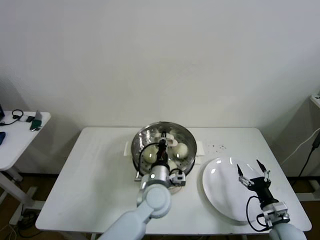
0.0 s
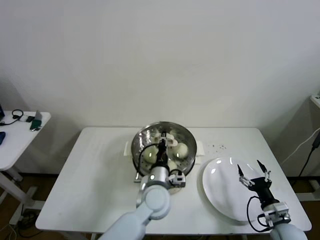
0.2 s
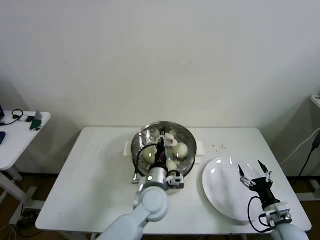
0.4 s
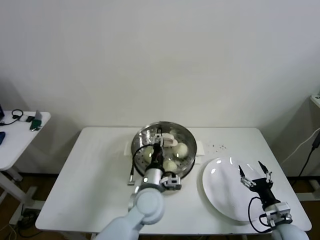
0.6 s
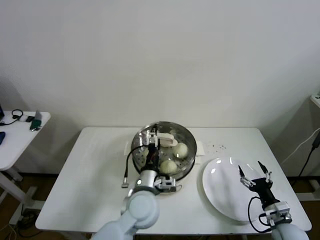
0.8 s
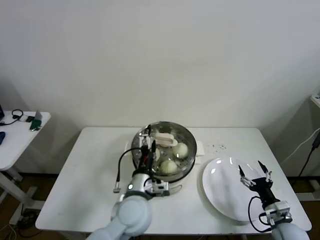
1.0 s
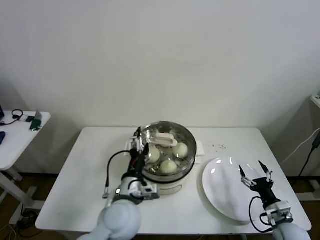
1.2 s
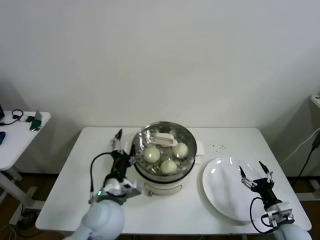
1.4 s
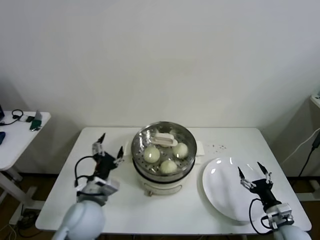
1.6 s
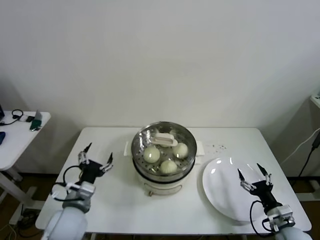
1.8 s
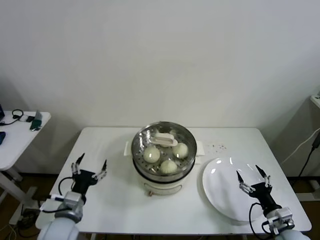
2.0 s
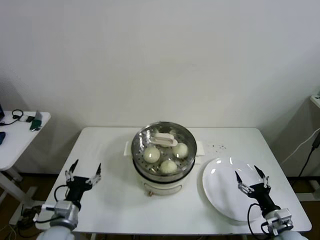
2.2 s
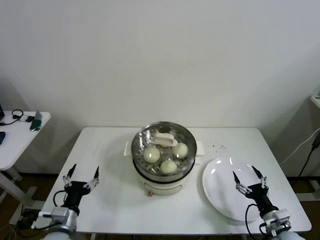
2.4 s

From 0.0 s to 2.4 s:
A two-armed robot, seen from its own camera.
From 0.0 s to 1.2 s: The left gripper goes roughly 10 cm to the left and backward, and opens up.
From 1.2 s to 2.4 s: The left gripper heads to the left and downward, covering roughly 25 cm.

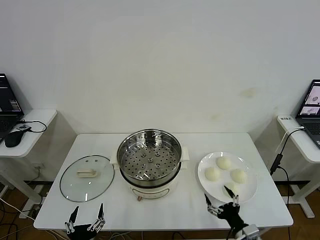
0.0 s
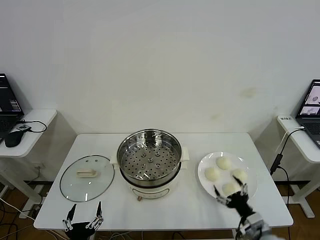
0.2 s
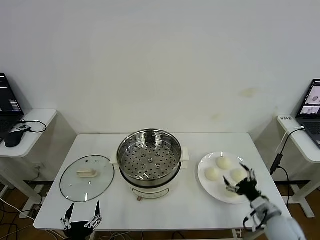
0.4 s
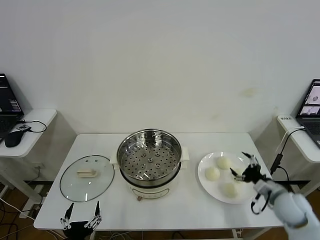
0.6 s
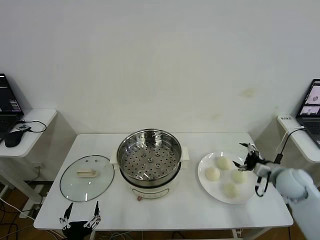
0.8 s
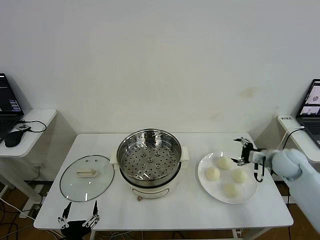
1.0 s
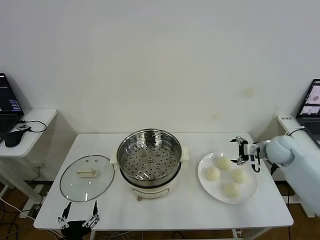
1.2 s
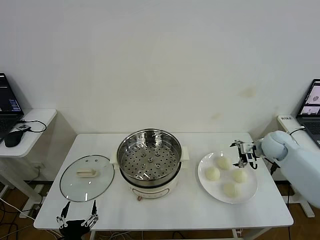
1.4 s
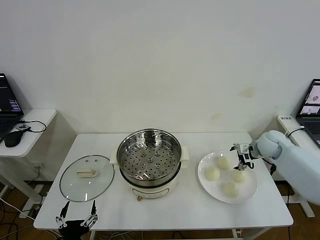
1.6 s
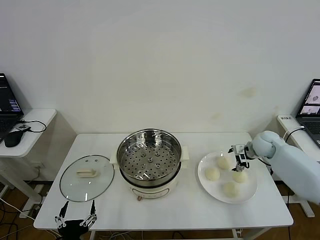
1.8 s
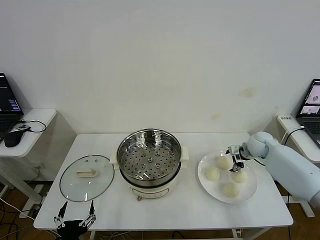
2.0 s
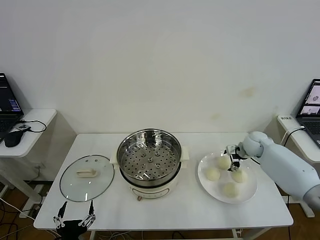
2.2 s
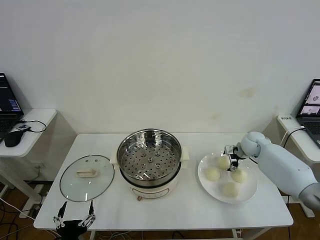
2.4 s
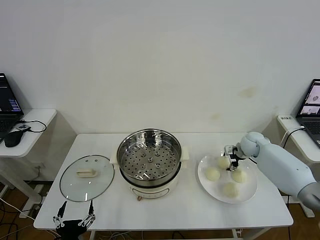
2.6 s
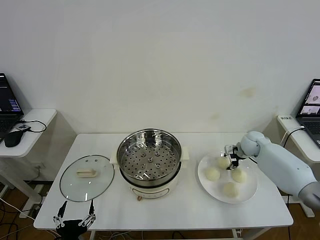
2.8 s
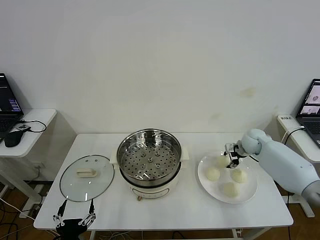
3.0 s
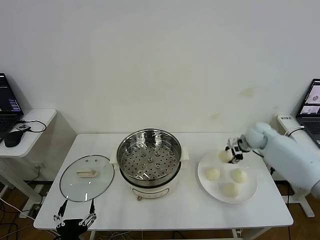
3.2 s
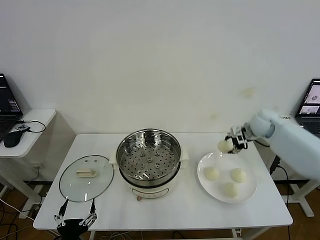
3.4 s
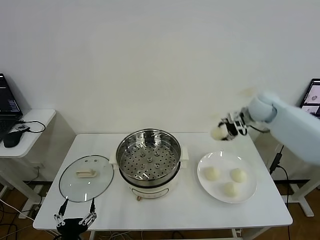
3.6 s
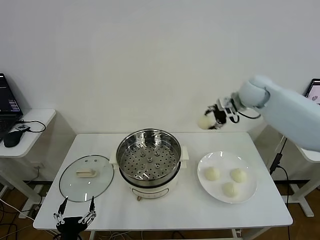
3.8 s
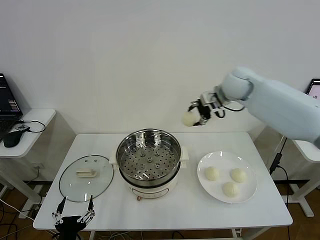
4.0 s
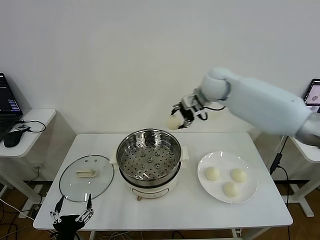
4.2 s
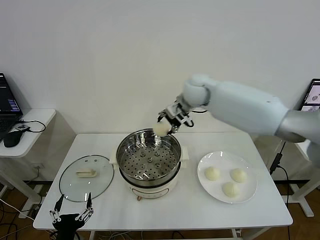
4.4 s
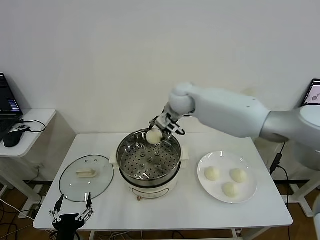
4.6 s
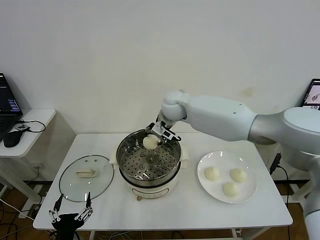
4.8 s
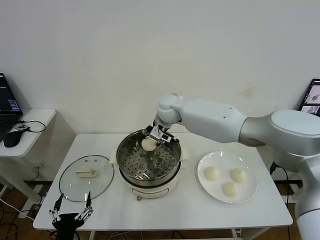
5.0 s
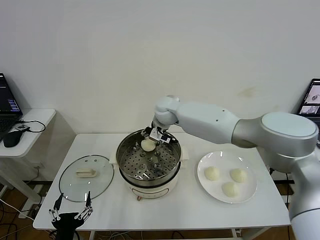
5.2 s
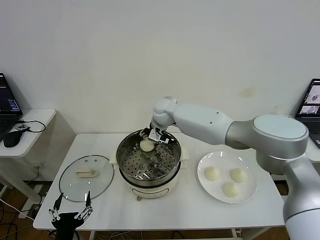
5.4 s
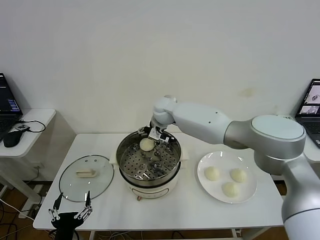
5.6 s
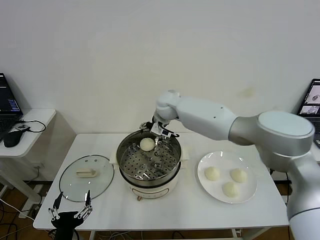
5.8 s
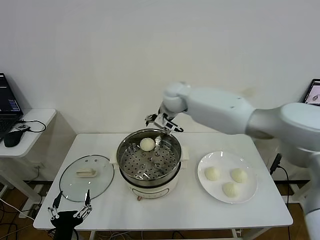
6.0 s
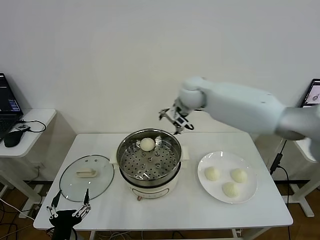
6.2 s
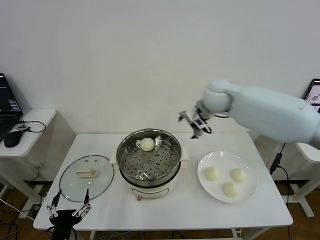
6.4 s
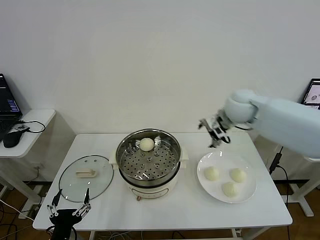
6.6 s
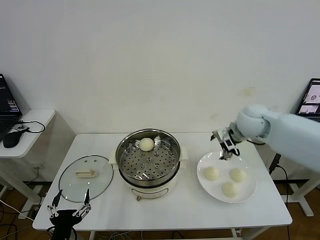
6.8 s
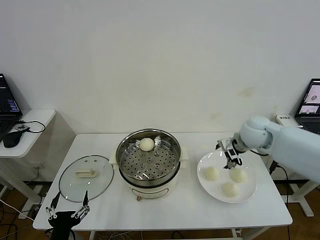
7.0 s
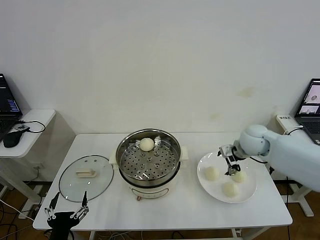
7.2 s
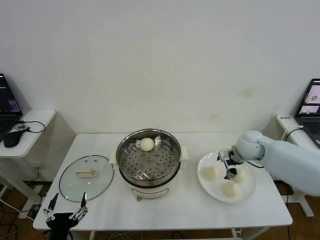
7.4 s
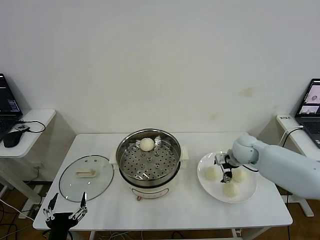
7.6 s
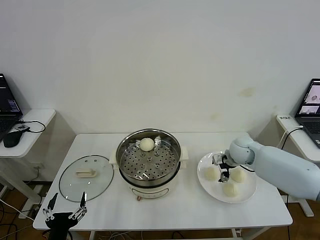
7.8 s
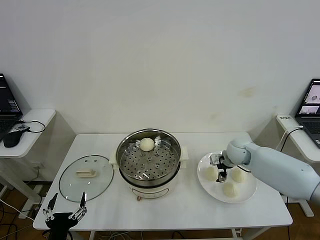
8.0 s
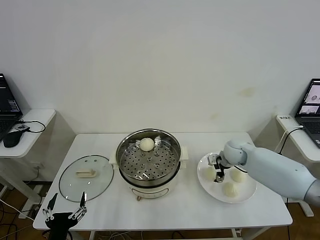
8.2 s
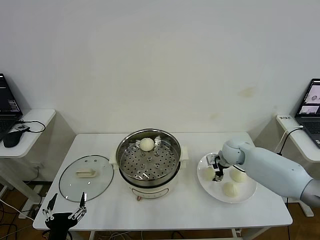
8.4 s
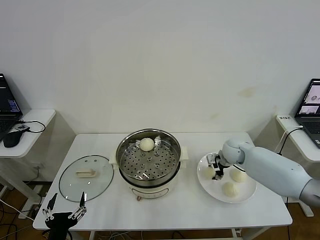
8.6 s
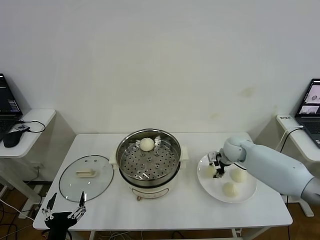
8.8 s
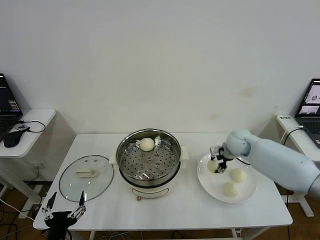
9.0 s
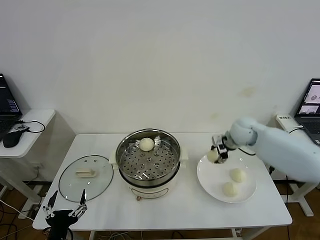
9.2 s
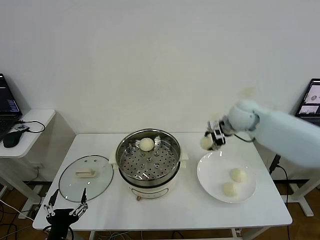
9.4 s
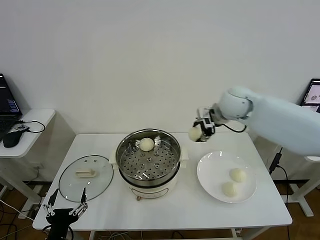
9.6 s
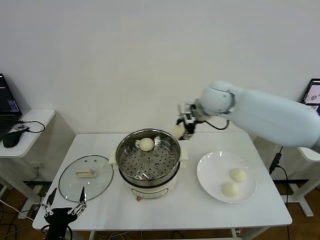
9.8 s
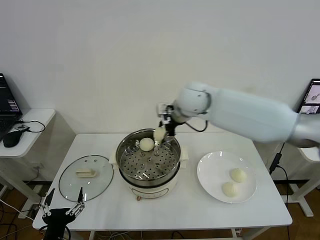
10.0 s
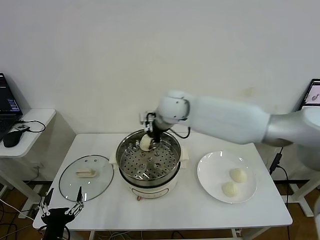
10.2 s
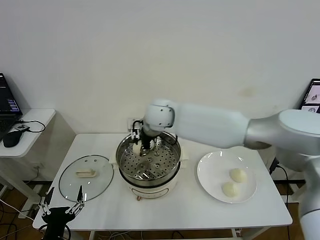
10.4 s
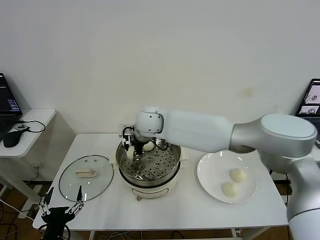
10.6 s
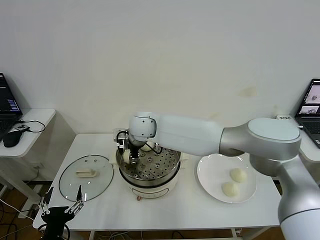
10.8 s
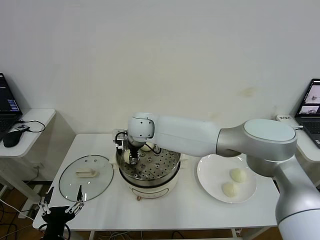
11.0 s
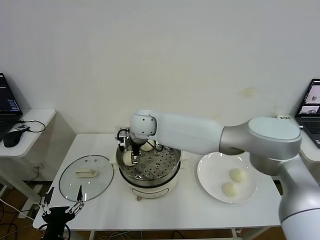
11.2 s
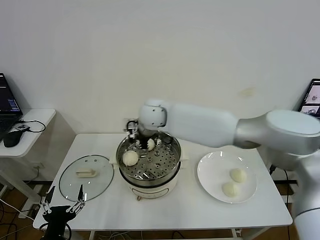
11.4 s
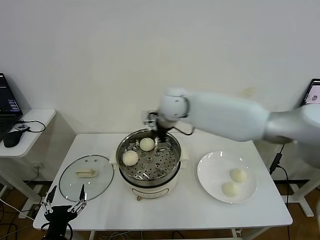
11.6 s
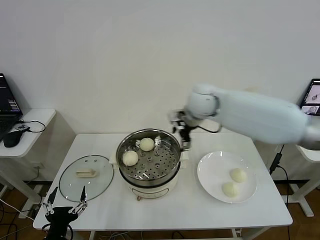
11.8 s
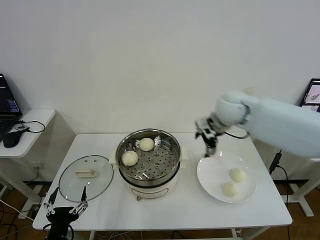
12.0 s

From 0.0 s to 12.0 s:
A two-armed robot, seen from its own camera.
Step, from 0.0 s to 2.8 s: Grasp the baozi in the plate with right gripper.
Step, from 3.0 s to 5.6 s: Place the baozi on the steamer with right gripper.
Step, from 5.8 s to 8.4 s: Grasp the baozi in the plate with right gripper.
Step, from 8.8 s to 11.0 s: Place the baozi on the steamer with right gripper.
From 1.6 s to 3.0 s: The right gripper closes up.
From 3.0 s to 4.4 s: The right gripper goes approximately 35 cm to the left and upward.
From 4.4 s to 6.0 s: The right gripper reaches some 10 cm downward, then returns, and opens up.
From 6.0 s to 7.6 s: The right gripper travels to the right and downward by roughly 30 cm.
From 7.6 s to 9.0 s: The right gripper closes up.
From 9.0 s to 10.4 s: The right gripper travels to the left by approximately 30 cm.
From 10.4 s to 12.0 s: The right gripper shifts about 25 cm to the right, and opens its fingers.

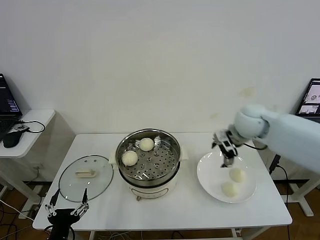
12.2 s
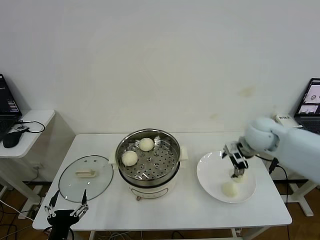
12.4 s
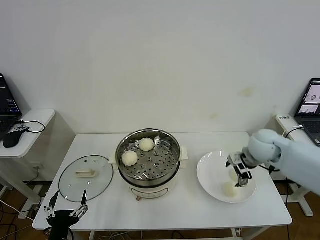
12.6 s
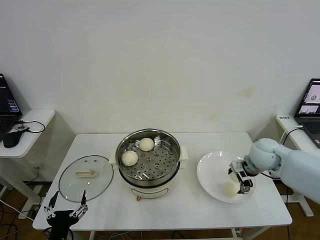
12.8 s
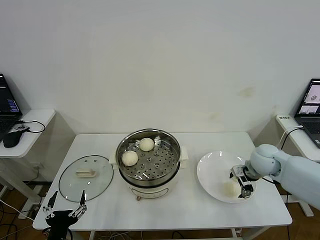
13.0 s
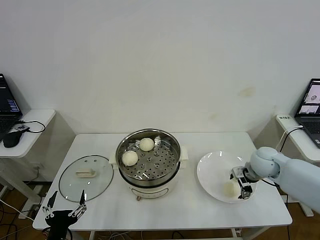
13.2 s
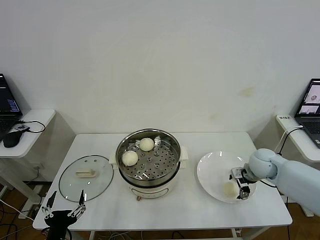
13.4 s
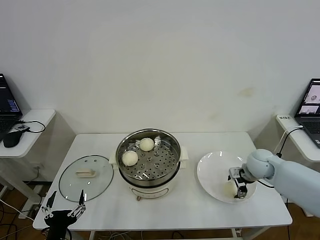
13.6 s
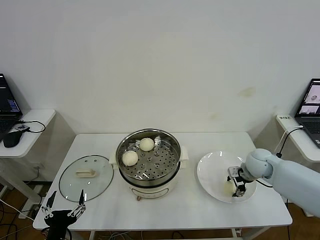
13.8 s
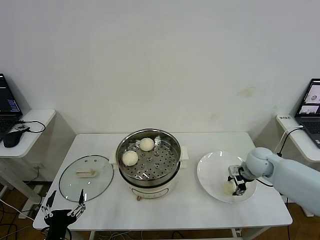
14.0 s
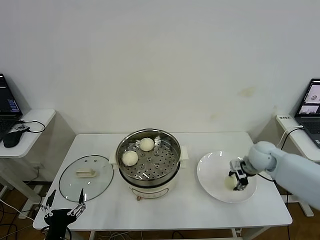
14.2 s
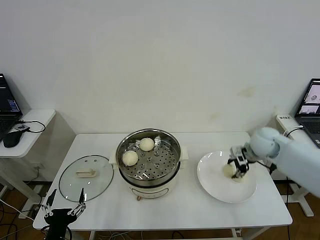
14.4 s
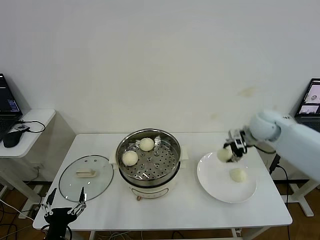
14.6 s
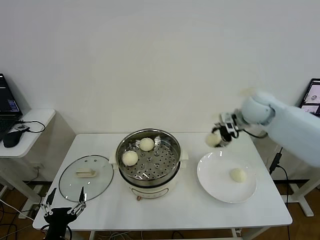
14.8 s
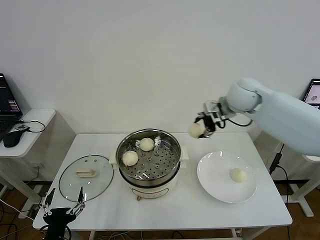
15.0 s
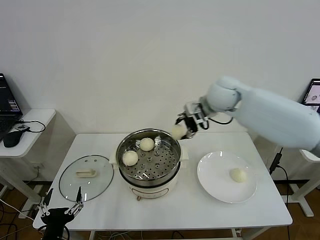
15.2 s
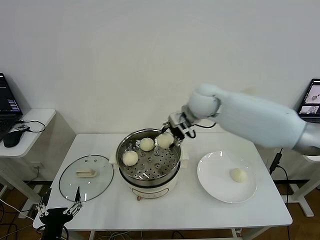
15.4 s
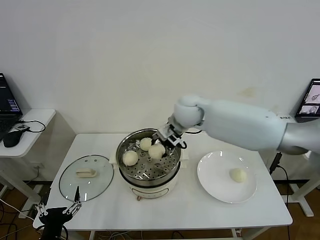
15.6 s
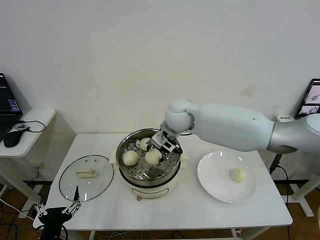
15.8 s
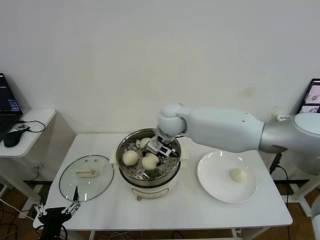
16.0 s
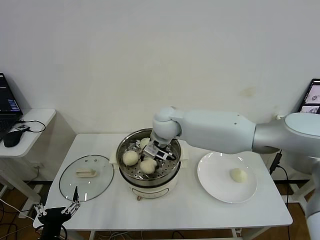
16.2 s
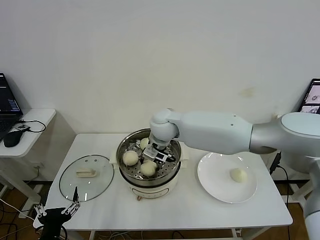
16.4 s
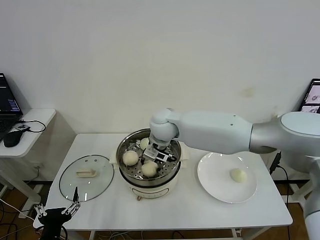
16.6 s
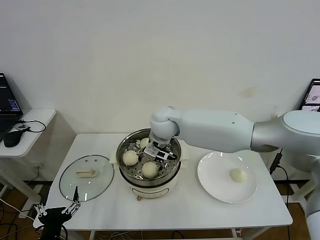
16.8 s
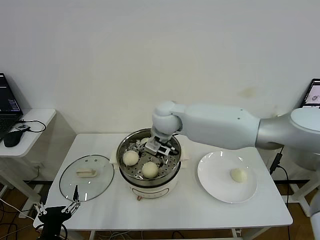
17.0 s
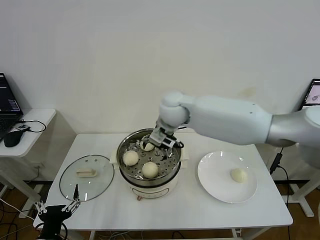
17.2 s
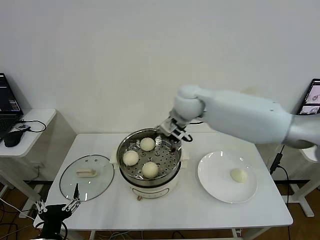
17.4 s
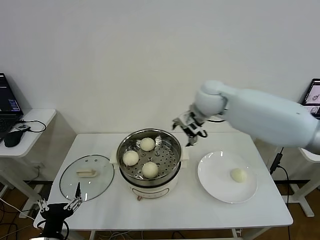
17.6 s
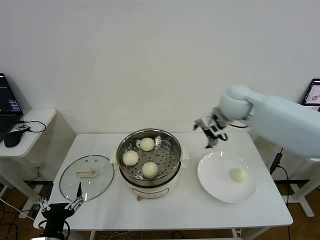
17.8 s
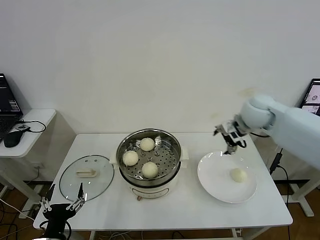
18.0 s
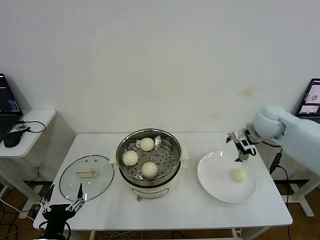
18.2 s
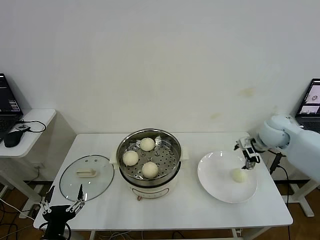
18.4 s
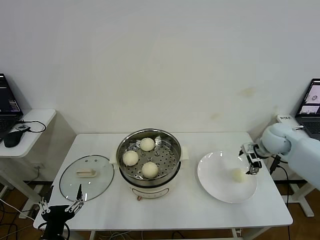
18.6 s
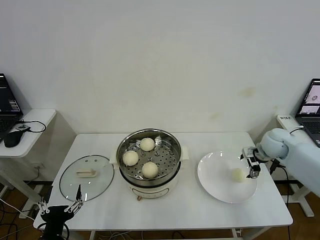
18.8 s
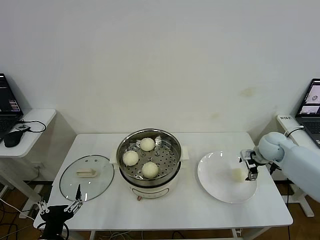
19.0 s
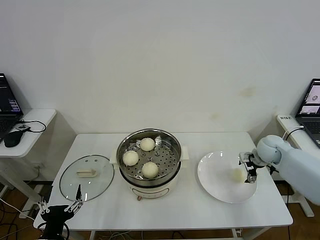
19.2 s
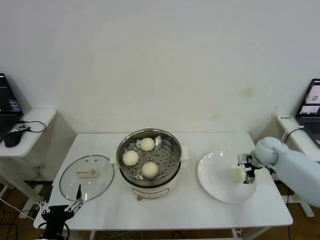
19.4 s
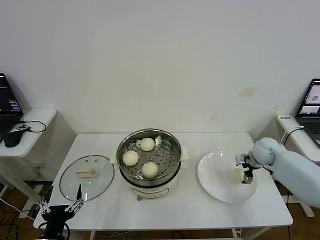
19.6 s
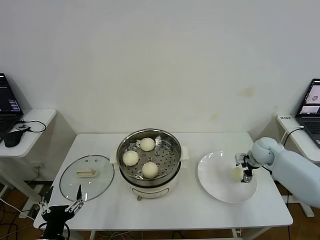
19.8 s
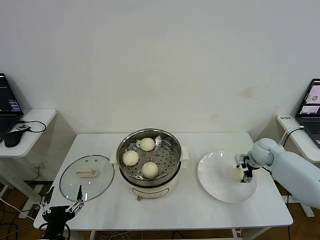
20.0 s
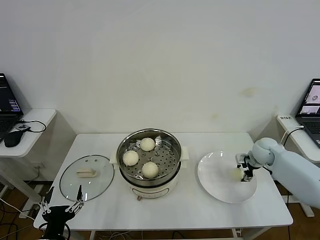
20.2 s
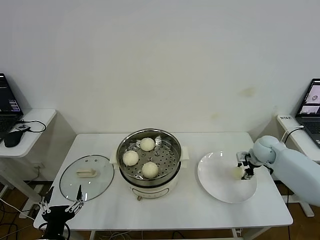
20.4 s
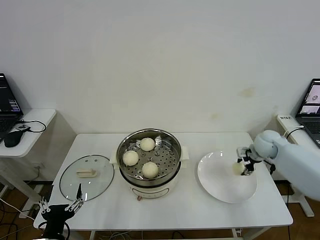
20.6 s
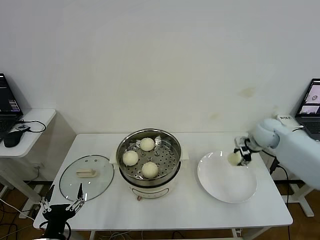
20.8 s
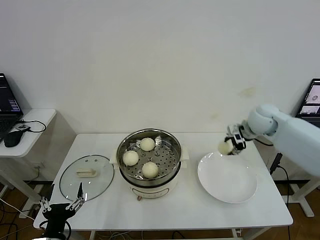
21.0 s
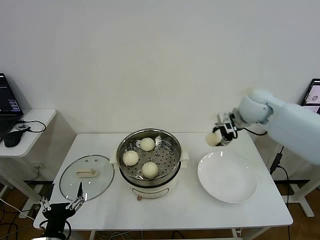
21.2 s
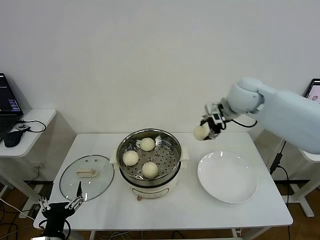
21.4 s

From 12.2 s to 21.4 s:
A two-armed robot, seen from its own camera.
Step, from 12.2 s to 13.8 s: Grasp the baozi in the plate with right gripper.
Step, from 14.0 s to 16.6 s: Place the baozi on the steamer with right gripper.
Step, from 17.0 s to 20.2 s: Grasp the baozi in the plate with right gripper.
From 12.2 s to 13.8 s: The right gripper is displaced downward and to the right by approximately 15 cm, and closes.
From 13.8 s to 15.2 s: The right gripper goes approximately 30 cm upward and to the left.
From 15.2 s to 16.8 s: The right gripper moves to the left and downward, roughly 20 cm, and opens up.
From 16.8 s to 18.4 s: The right gripper shifts some 35 cm to the right.
From 18.4 s to 19.8 s: The right gripper travels downward by some 10 cm.
From 19.8 s to 21.4 s: The right gripper shifts roughly 30 cm upward and to the left, and closes up.
